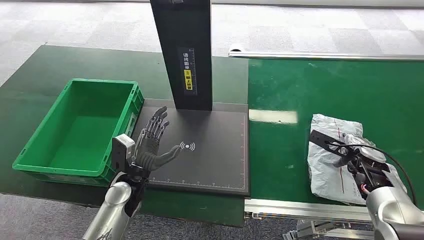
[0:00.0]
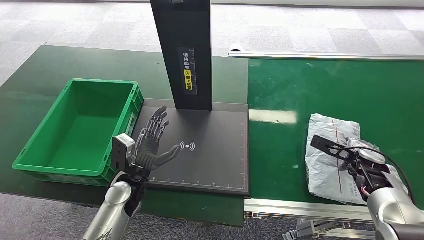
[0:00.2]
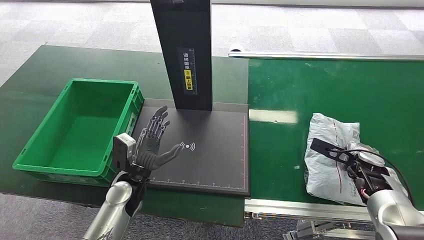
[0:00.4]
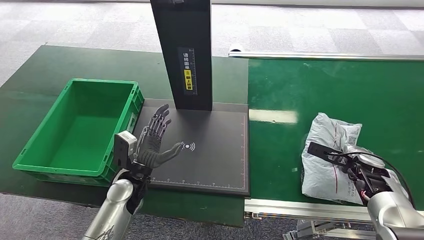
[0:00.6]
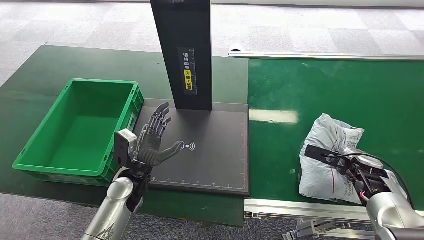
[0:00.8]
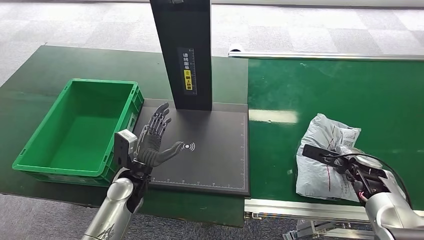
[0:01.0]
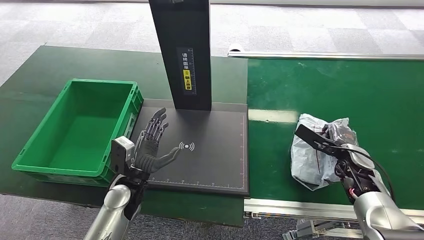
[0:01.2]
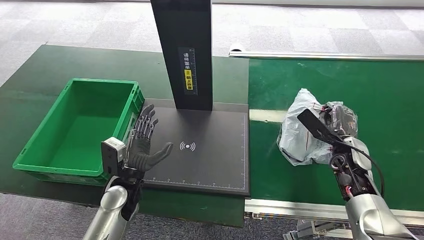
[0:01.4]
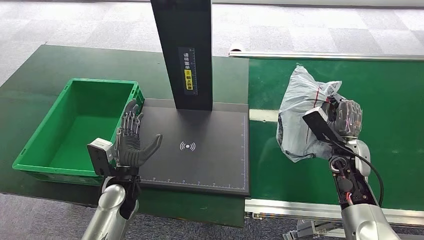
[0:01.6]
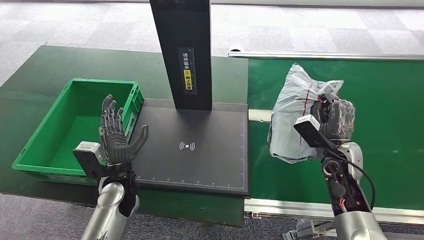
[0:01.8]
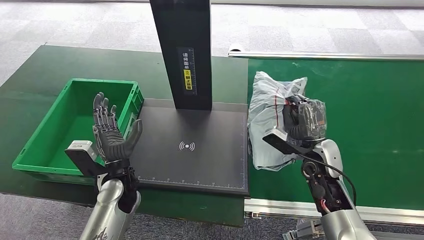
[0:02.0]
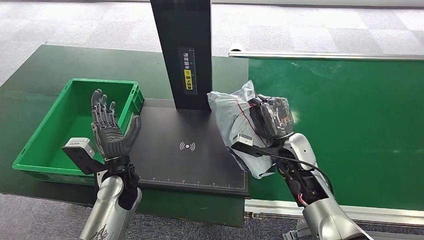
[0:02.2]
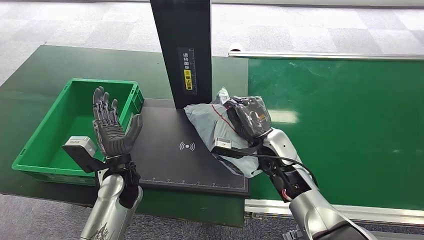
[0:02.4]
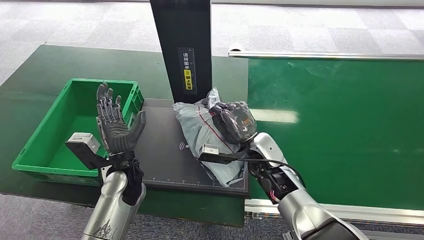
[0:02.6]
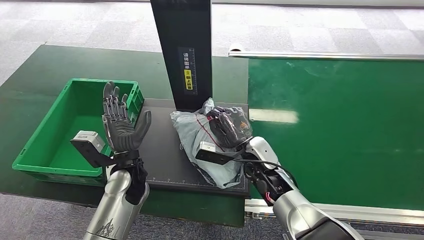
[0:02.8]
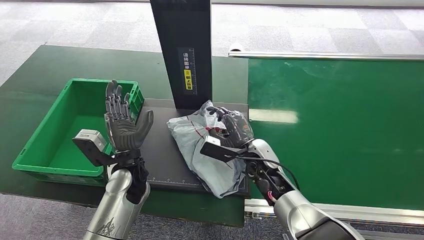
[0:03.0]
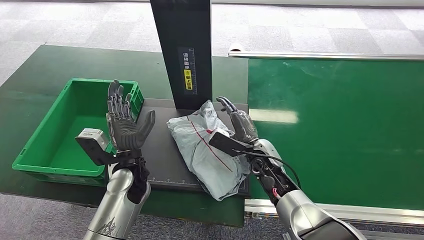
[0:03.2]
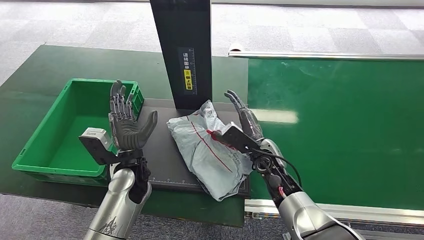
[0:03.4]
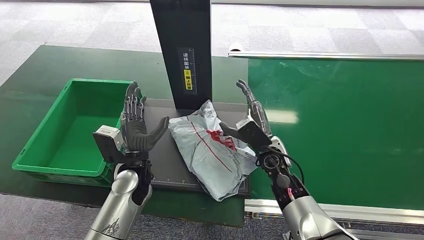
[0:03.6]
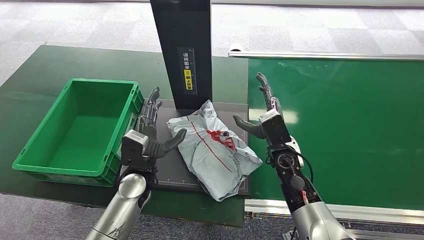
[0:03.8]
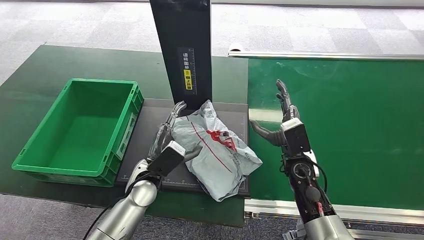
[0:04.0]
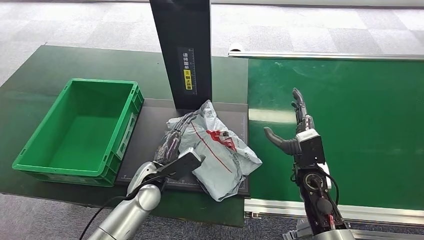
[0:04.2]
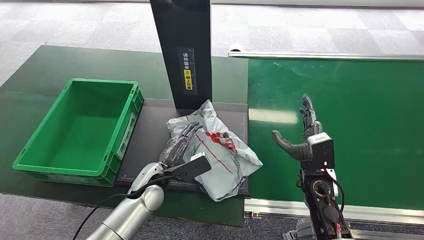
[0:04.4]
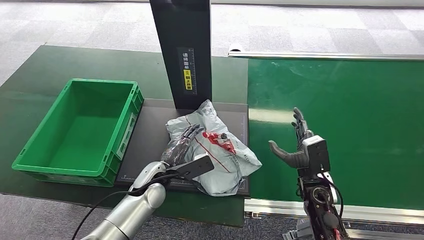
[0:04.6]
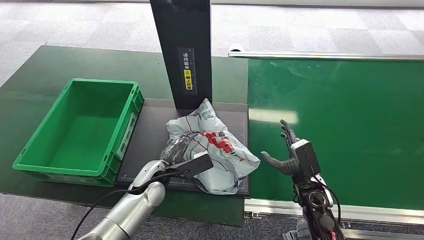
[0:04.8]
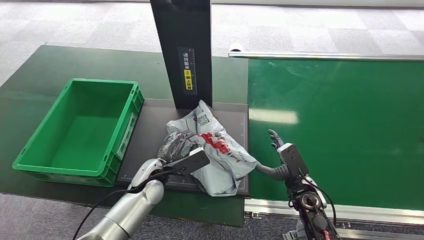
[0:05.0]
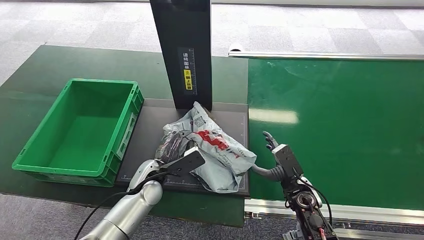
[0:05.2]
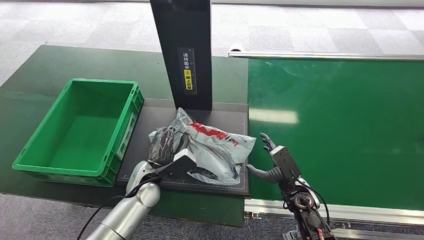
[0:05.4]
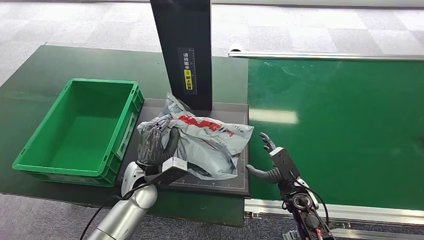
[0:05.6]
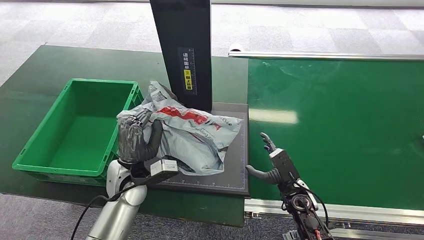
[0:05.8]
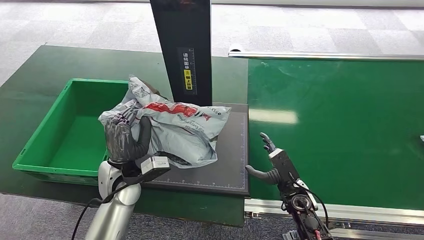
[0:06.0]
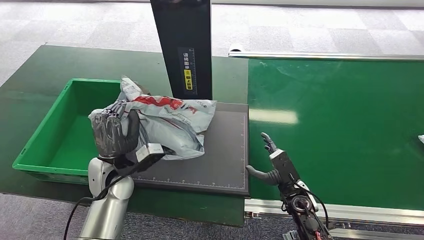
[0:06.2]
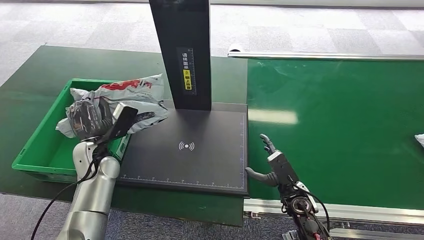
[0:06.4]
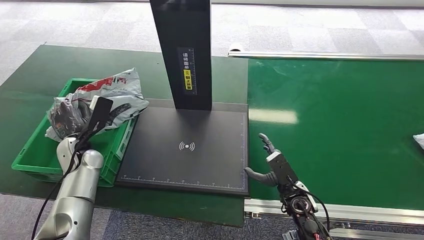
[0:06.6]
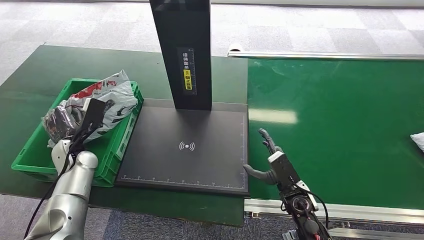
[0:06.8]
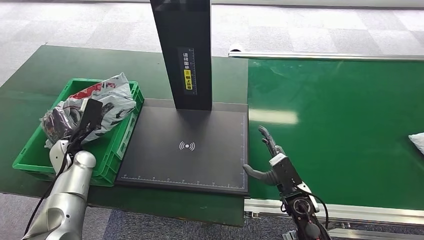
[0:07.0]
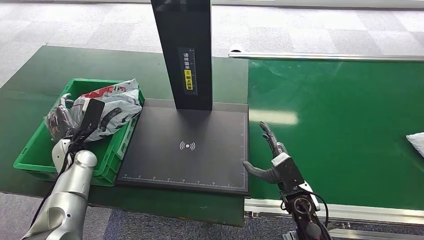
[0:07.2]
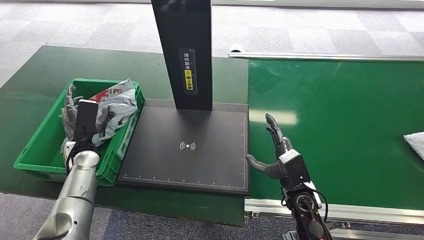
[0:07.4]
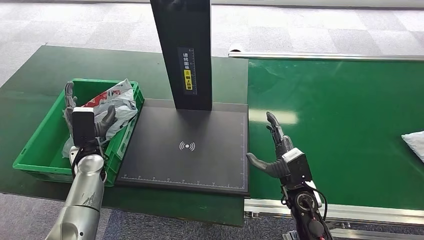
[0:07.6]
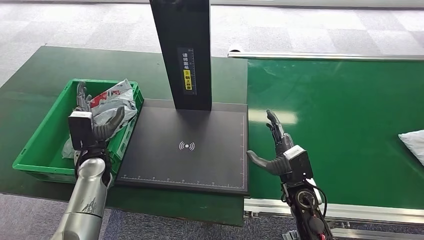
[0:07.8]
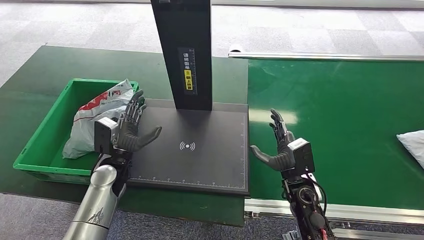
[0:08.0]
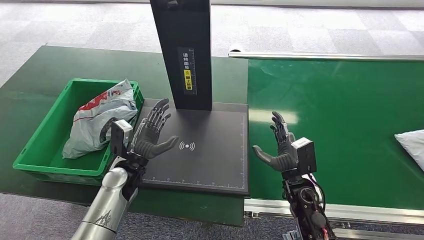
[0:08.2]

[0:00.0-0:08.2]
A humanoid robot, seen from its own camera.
Task of the whole recording: Weigh the package on the weighing device and place it in the left basket.
Step, 0:00.0 to 0:02.0: Pick up the package from the conveyor belt.
Step, 0:02.2 to 0:03.8: Place the package onto the inbound machine.
Step, 0:04.0 to 0:06.2: Pick up the package from the inbound machine.
Step, 0:06.4 to 0:08.2: Place the package into the parcel locker.
0:03.2 to 0:05.0: The right hand shifts approximately 15 cm to the right, backward and downward; the left hand travels downward by about 5 cm.
0:05.0 to 0:06.6: The left hand goes about 15 cm to the left.
0:06.6 to 0:08.2: The right hand shifts by approximately 5 cm. Meanwhile the left hand is displaced to the right by about 10 cm.
